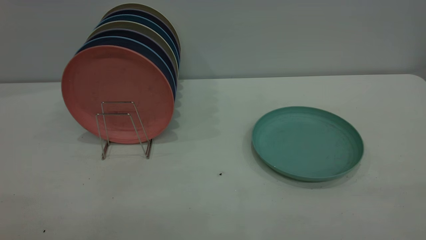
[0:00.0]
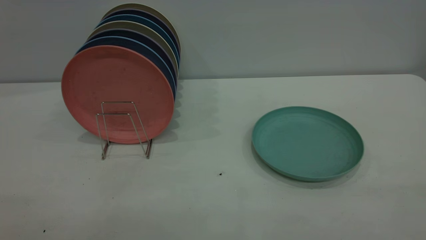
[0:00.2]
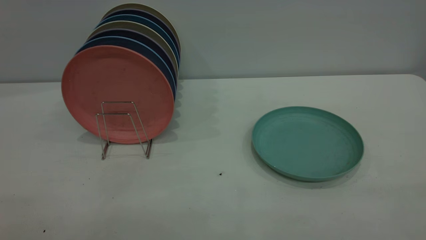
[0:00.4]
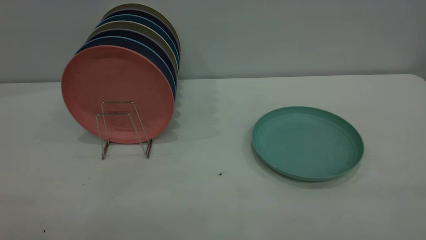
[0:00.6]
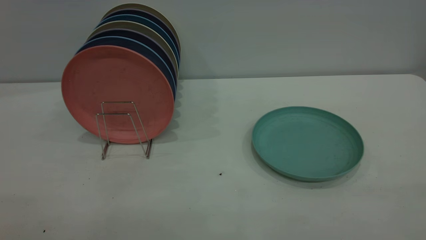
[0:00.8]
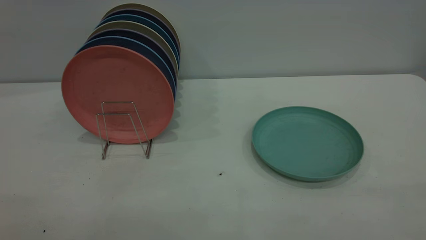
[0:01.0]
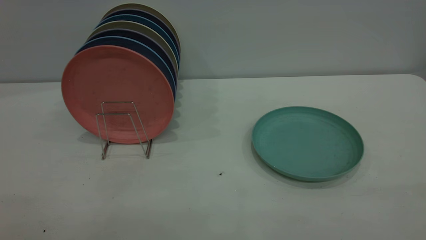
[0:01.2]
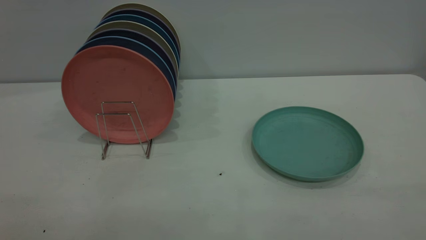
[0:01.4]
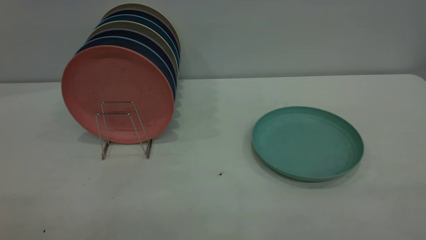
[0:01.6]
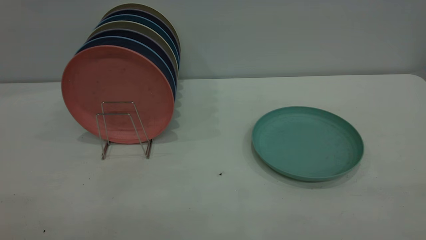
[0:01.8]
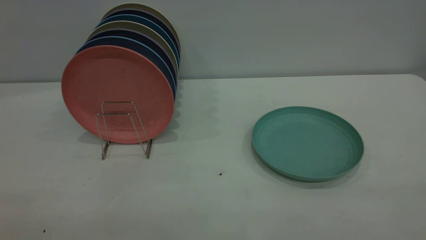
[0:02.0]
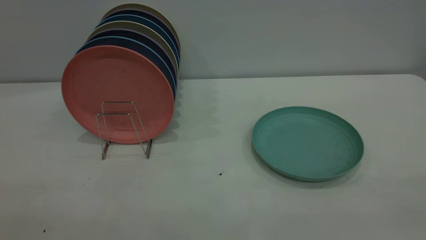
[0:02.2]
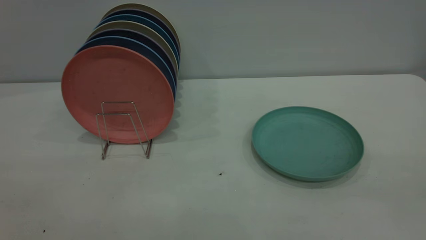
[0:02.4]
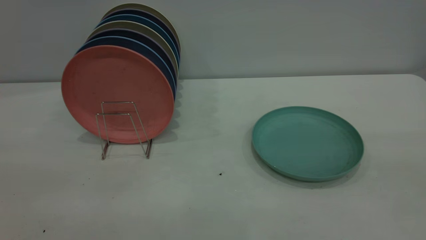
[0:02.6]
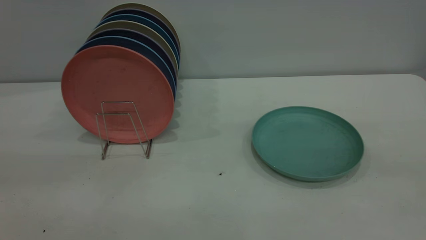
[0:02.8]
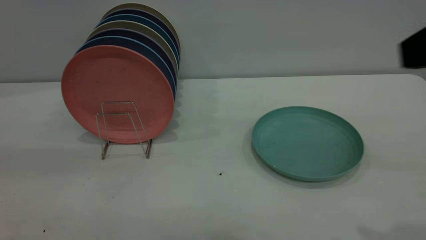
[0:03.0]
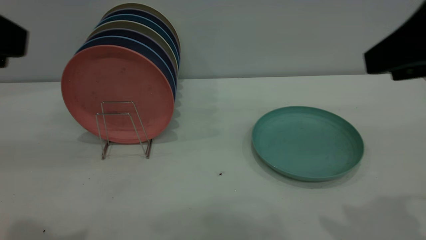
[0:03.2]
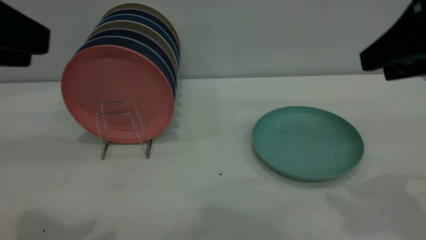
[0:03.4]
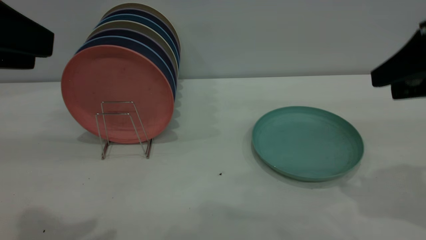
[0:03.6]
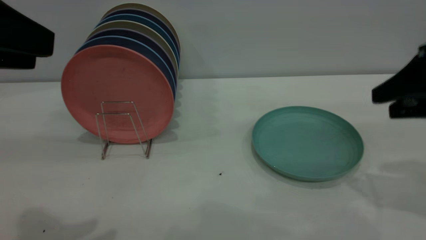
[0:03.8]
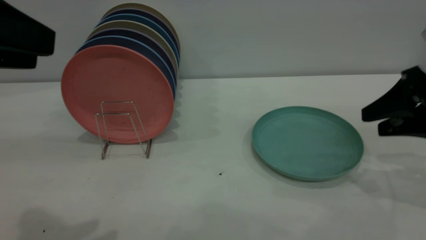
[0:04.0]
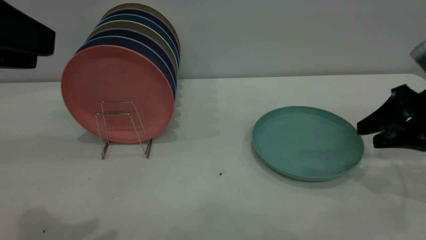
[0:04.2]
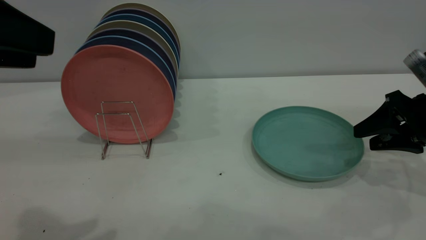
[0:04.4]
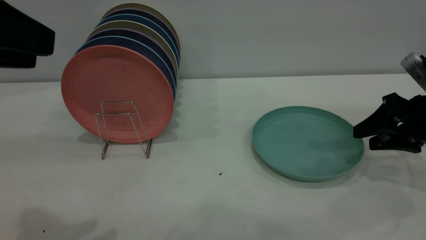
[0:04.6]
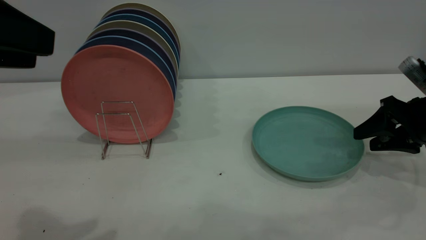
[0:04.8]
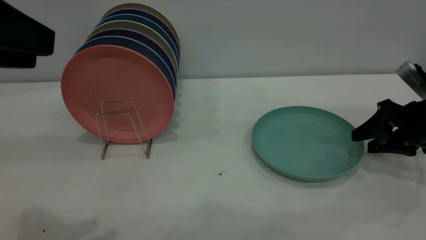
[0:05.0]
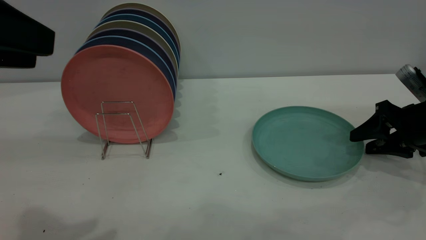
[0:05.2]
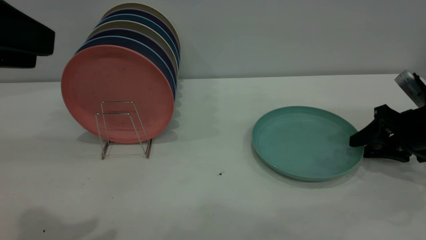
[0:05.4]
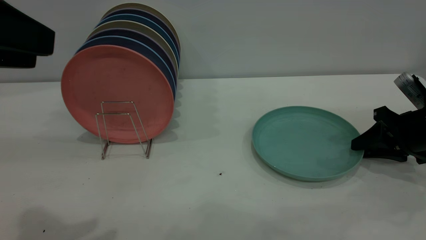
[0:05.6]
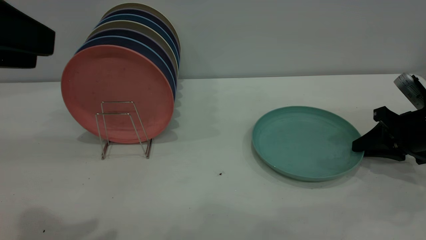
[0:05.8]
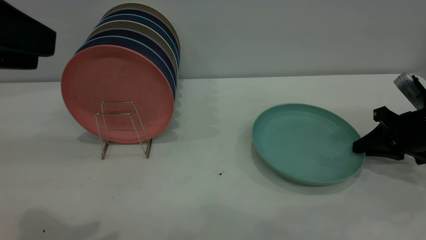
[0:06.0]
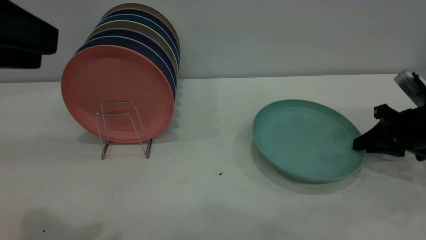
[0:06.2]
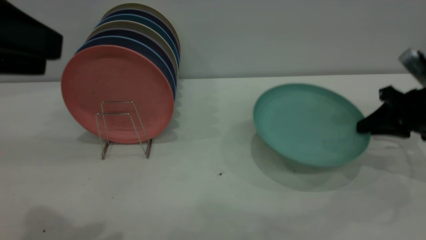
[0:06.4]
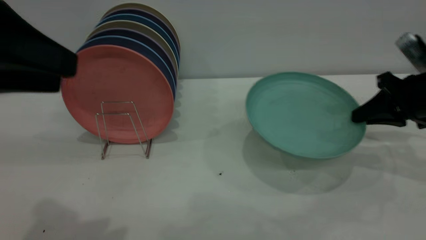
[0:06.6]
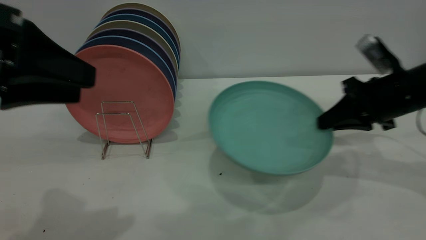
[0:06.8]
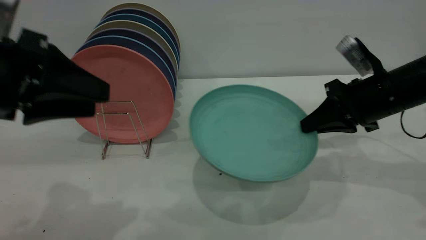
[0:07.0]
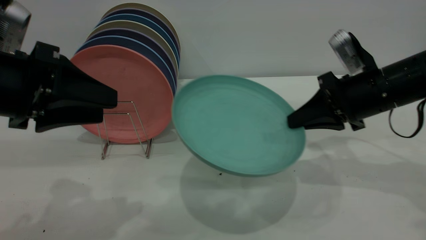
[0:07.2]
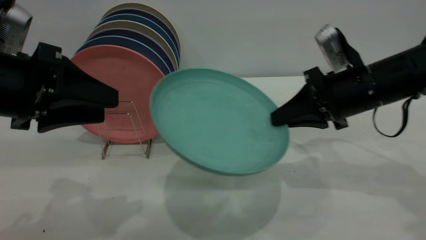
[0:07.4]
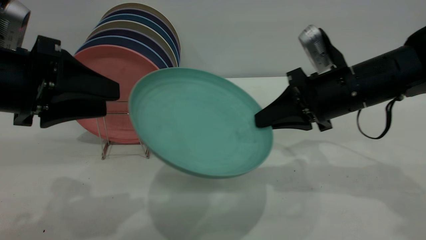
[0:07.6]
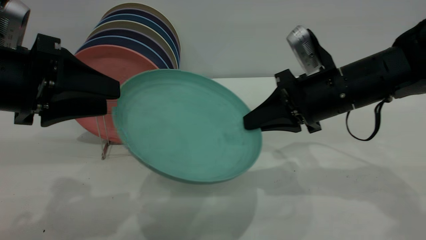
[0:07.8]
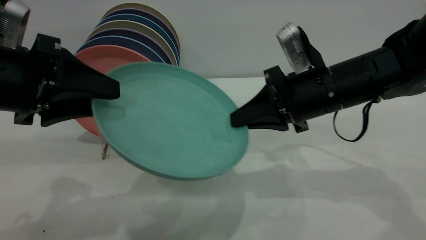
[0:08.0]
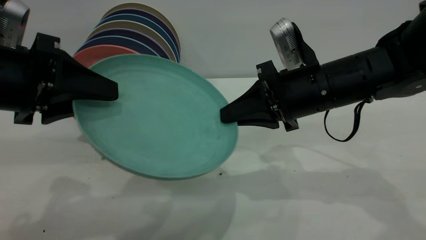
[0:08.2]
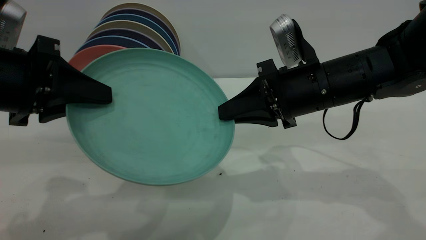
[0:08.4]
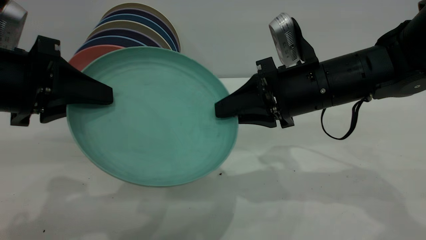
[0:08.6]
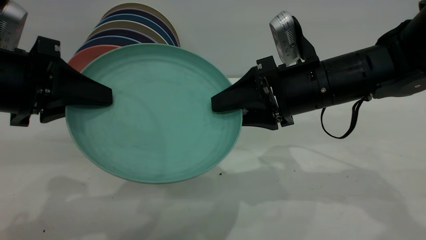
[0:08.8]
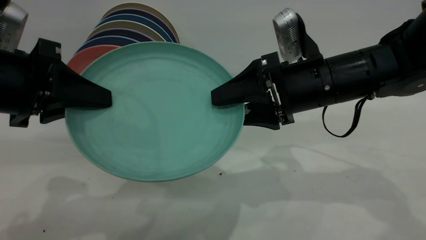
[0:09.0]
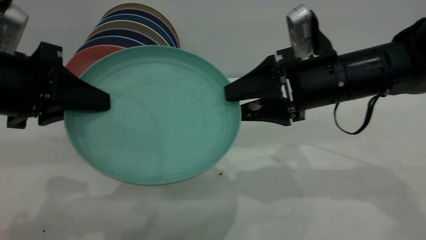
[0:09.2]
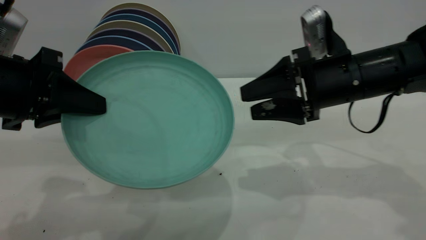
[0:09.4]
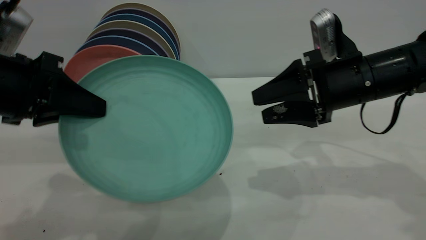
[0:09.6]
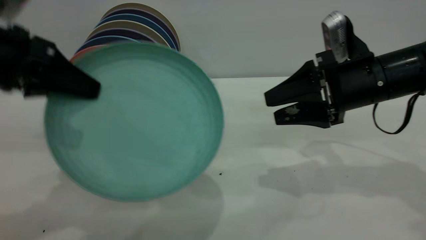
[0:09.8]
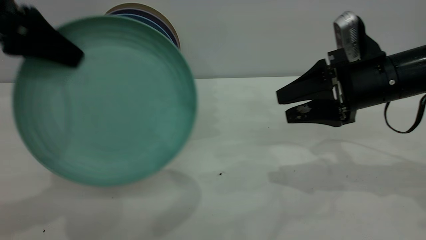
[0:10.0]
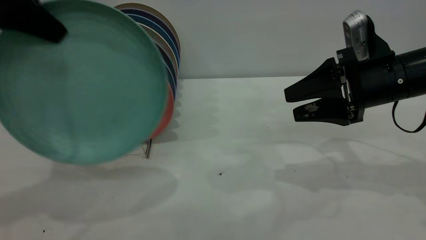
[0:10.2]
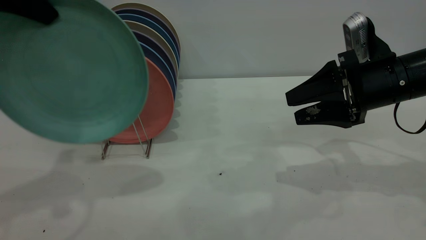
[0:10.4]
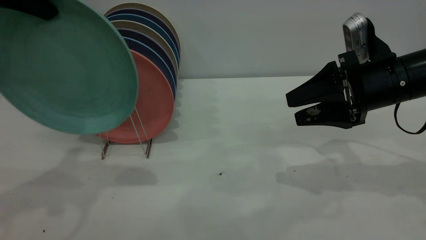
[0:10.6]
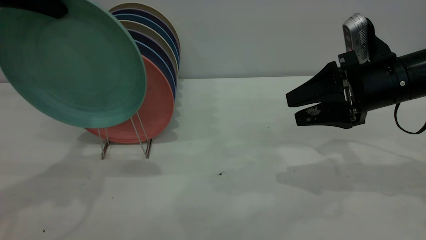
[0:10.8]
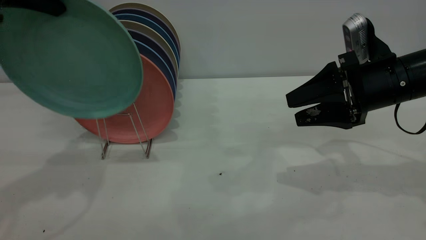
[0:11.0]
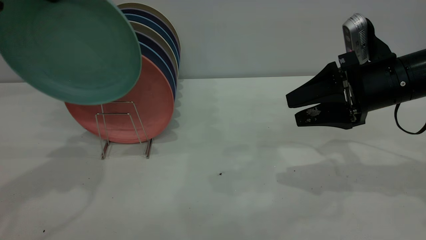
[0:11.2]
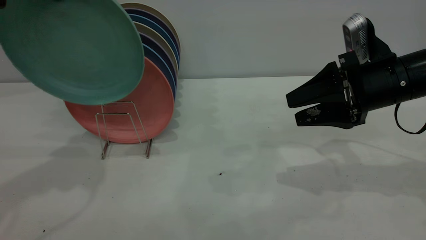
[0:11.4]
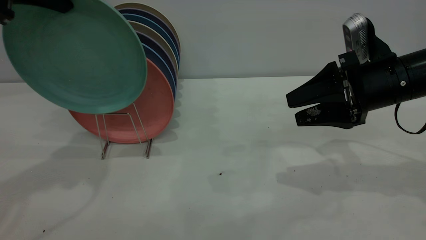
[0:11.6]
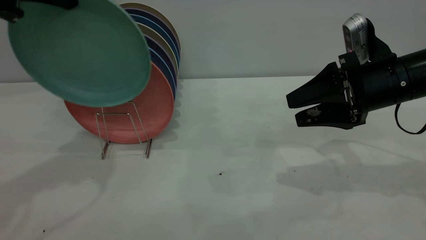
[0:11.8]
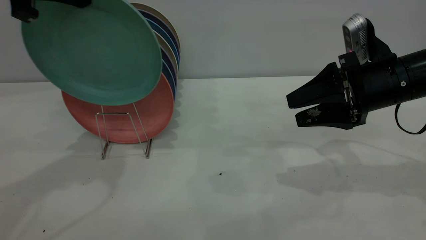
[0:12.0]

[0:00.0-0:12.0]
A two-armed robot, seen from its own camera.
Task of the whole recording: the right gripper grasp the green plate, the right gripper pass the green plate to the left gripper, and the left gripper place the green plate on the plate rack.
Step, 0:00.0 to 0:06.6: Pick up the plate with the right gripper.
Step, 0:06.8 to 0:10.2: Pass the plate from the right gripper to the left gripper.
0:00.0 to 0:01.6: Neither gripper changes place.
0:01.6 to 0:03.0: The right gripper goes approximately 20 cm forward.
0:03.0 to 0:04.4: The right gripper shifts some 25 cm downward and forward. The left gripper ends up about 5 cm from where it was.
0:04.4 to 0:06.0: The right gripper moves some 5 cm, and closes.
0:06.0 to 0:07.6: The left gripper travels downward and forward by roughly 10 cm; the right gripper moves to the left and upward, about 20 cm.
0:07.6 to 0:09.0: The left gripper closes. Meanwhile the right gripper opens up.
0:09.0 to 0:10.4: The left gripper shifts approximately 15 cm upward and forward. The right gripper heads to the right, covering approximately 10 cm.
0:10.4 to 0:12.0: The left gripper moves approximately 5 cm.

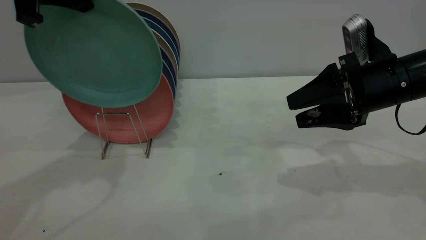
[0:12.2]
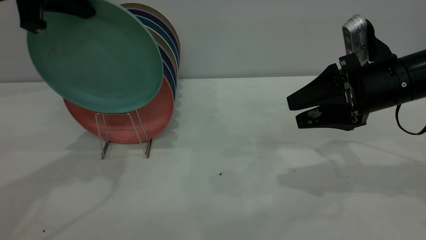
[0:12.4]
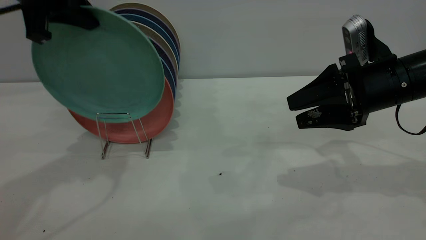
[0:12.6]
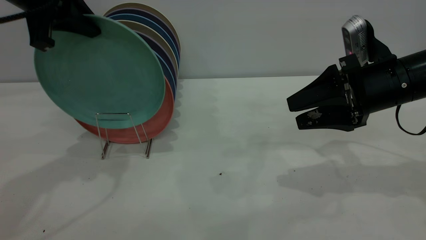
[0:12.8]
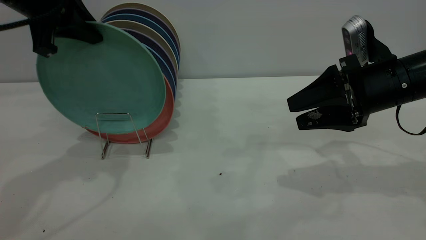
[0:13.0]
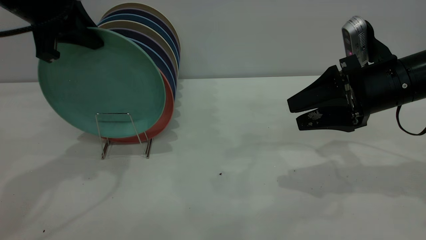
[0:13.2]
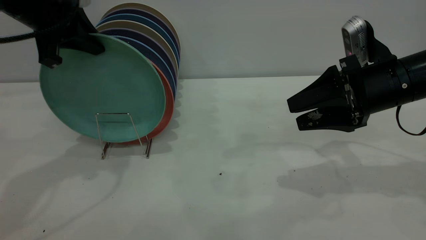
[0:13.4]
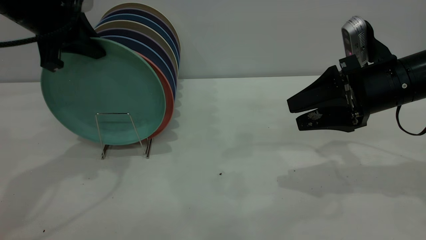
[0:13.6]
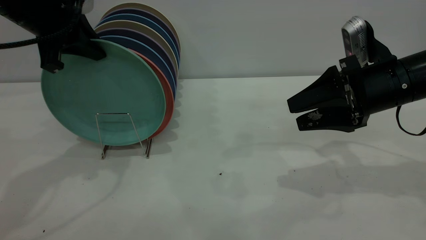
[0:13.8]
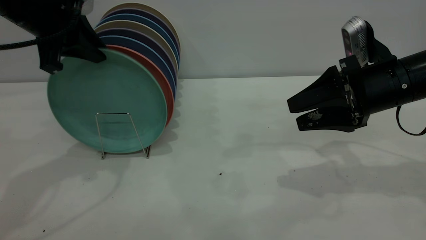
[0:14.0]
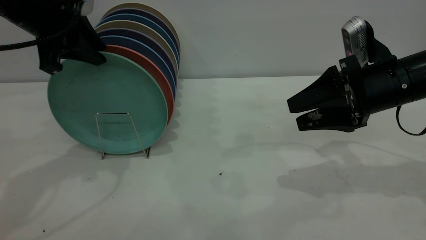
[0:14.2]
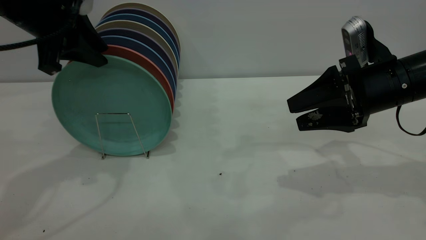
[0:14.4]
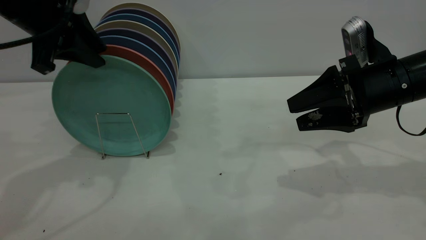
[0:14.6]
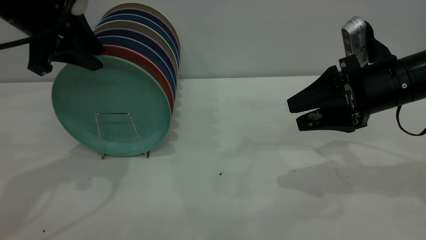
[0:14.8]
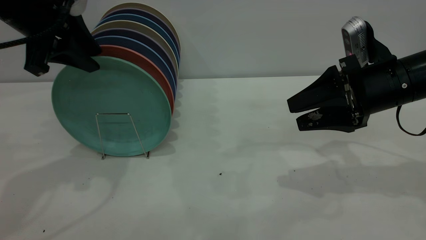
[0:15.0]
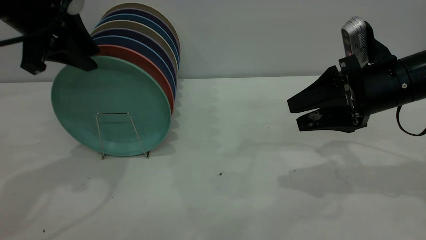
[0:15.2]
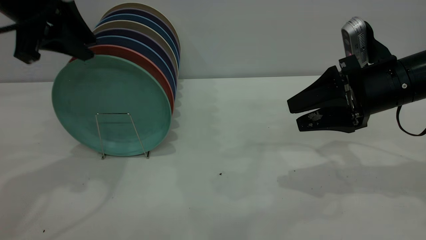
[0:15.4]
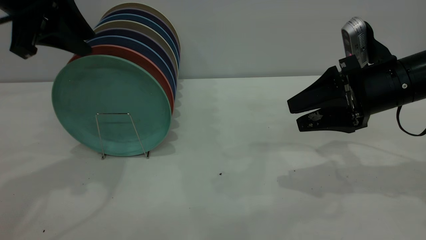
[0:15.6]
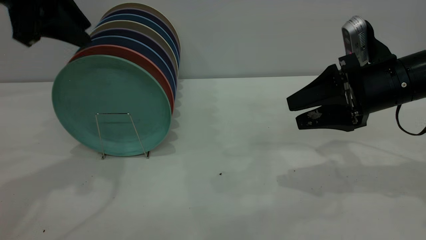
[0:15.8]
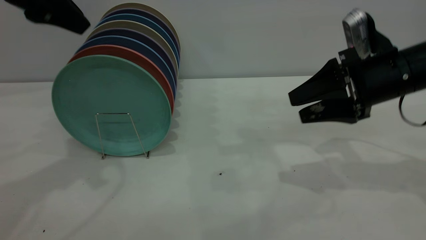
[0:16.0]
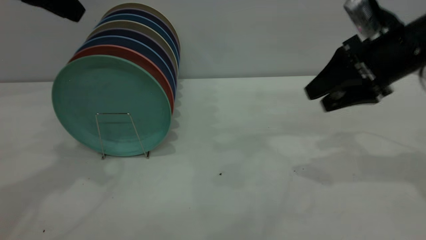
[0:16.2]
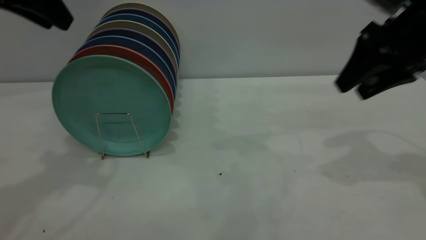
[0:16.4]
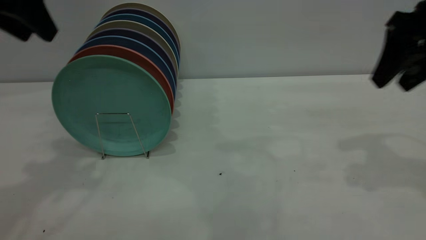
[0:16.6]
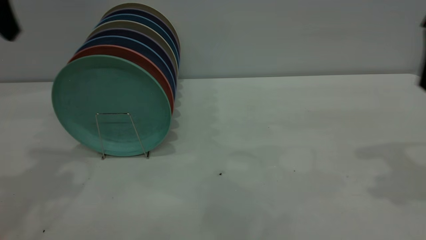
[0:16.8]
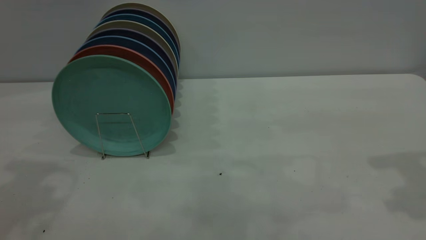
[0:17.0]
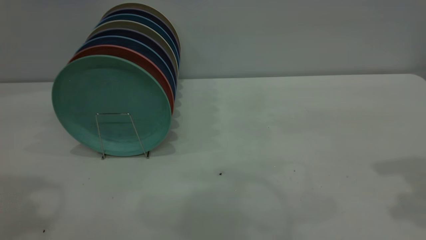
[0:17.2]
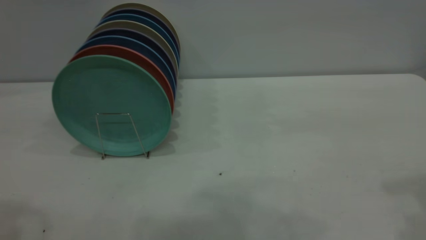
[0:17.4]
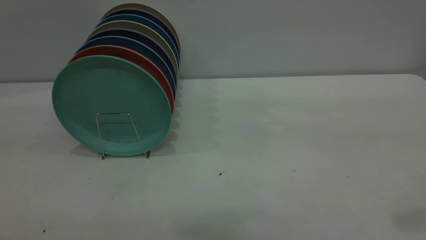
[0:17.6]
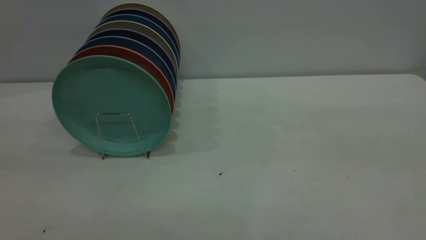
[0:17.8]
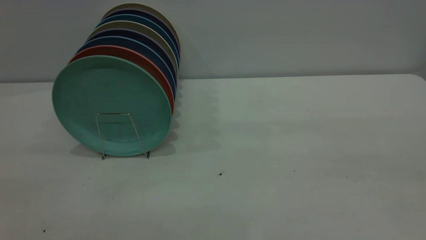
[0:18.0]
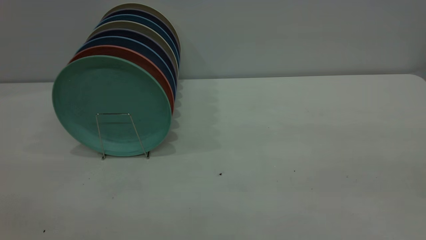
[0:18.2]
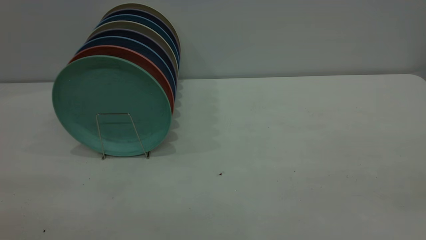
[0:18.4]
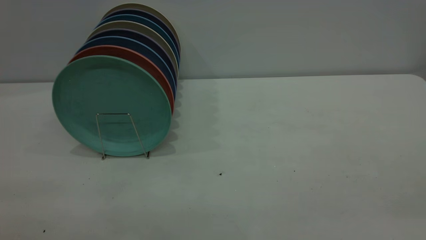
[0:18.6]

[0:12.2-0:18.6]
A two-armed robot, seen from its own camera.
Task of the whole recording: the right gripper grasp the green plate, the right gripper pass the green plate to the left gripper, and the left gripper place the green plate on the plate rack.
Step, 0:12.2 to 0:16.0: Place the plate on the shelf.
0:12.2 to 0:13.8: The left gripper travels downward by about 5 cm.
0:13.8 to 0:15.4: The left gripper opens up.
0:15.4 to 0:17.0: The left gripper is displaced upward and backward by roughly 15 cm, and opens. Meanwhile the right gripper moves upward and to the right, roughly 20 cm.
